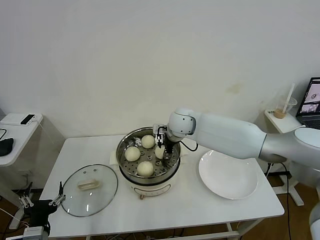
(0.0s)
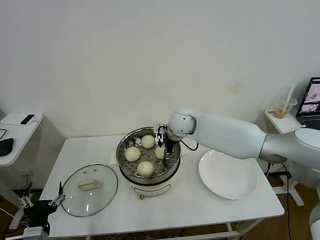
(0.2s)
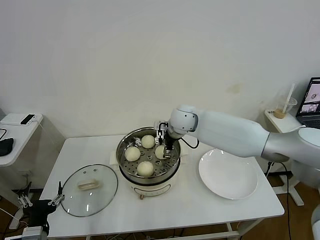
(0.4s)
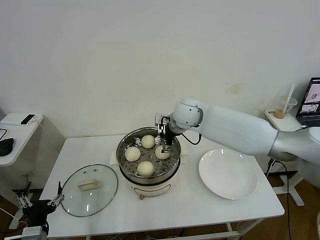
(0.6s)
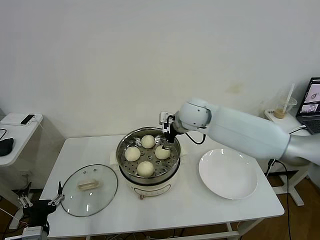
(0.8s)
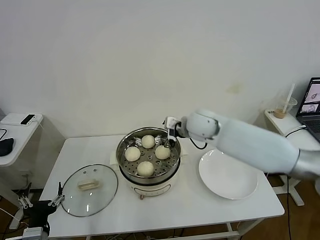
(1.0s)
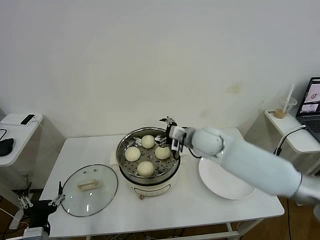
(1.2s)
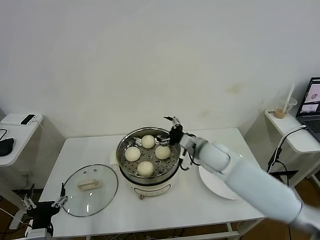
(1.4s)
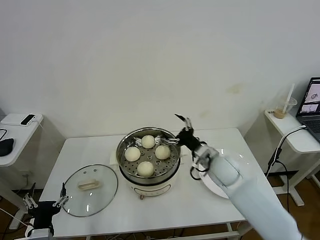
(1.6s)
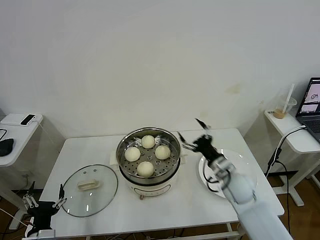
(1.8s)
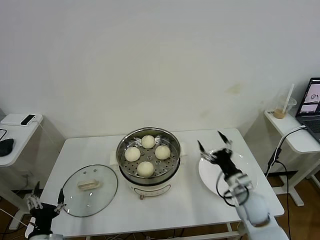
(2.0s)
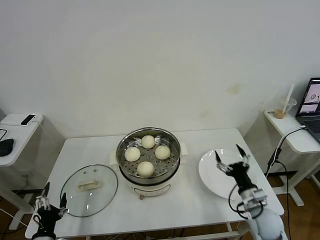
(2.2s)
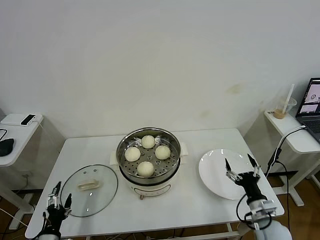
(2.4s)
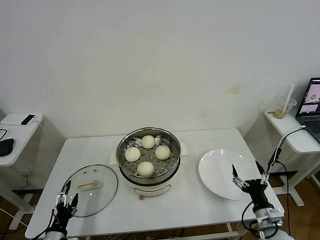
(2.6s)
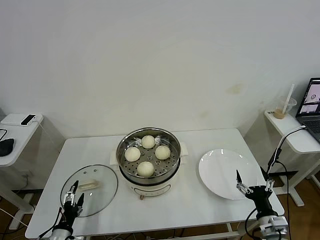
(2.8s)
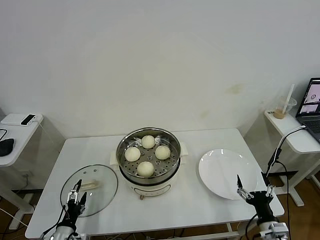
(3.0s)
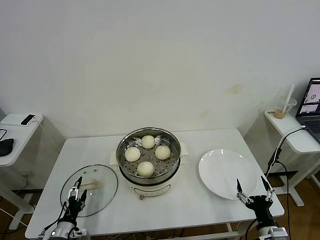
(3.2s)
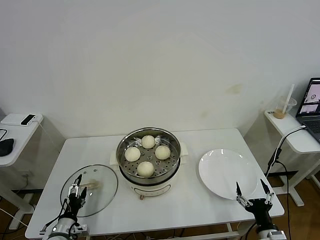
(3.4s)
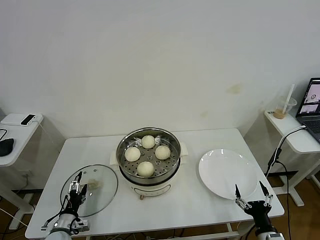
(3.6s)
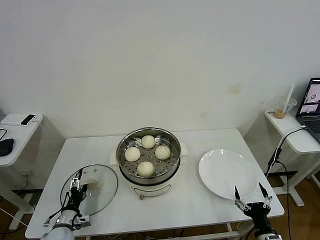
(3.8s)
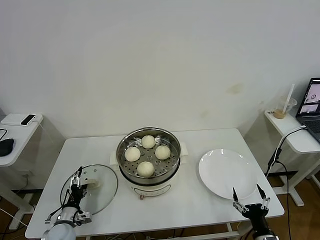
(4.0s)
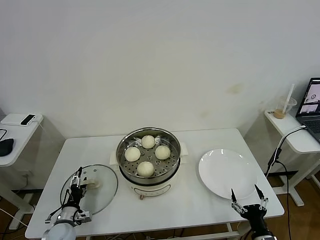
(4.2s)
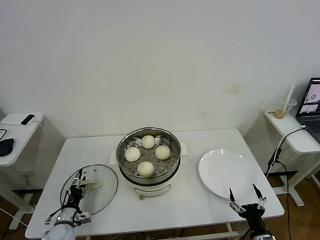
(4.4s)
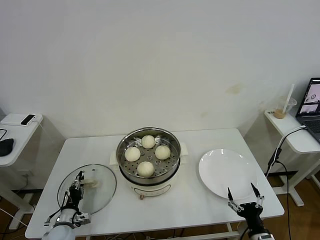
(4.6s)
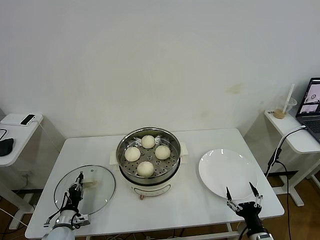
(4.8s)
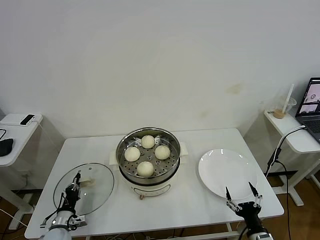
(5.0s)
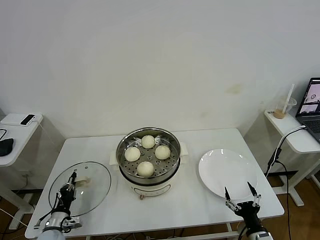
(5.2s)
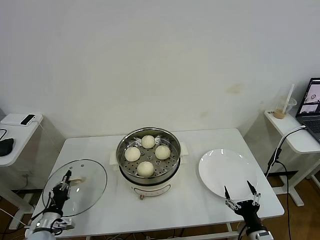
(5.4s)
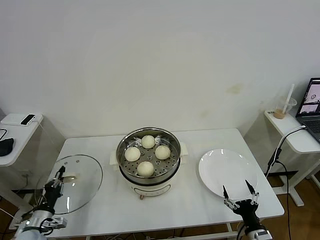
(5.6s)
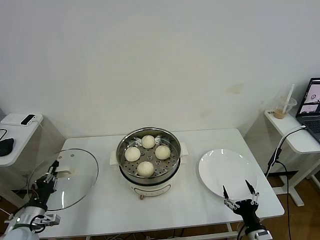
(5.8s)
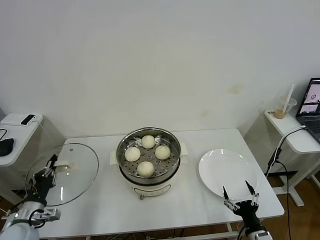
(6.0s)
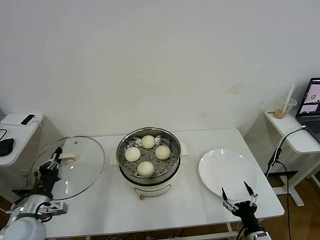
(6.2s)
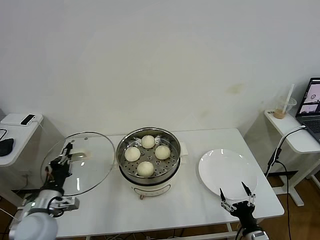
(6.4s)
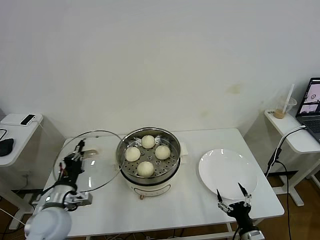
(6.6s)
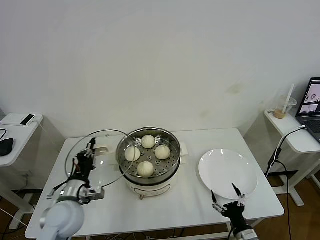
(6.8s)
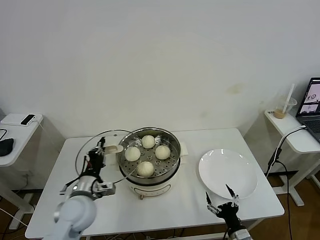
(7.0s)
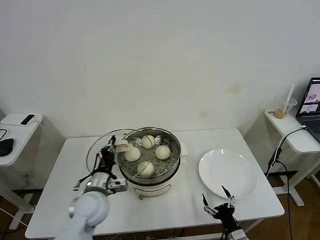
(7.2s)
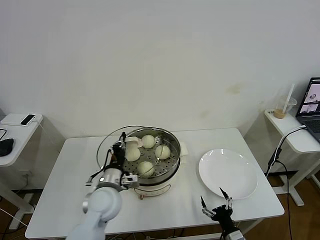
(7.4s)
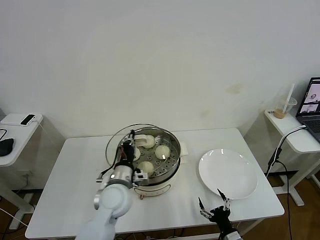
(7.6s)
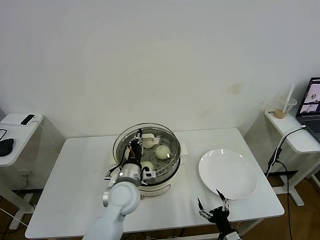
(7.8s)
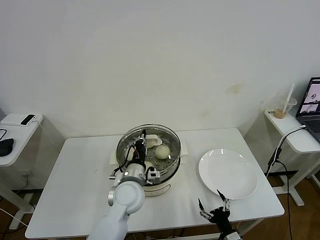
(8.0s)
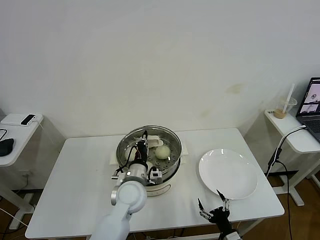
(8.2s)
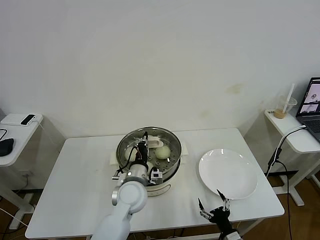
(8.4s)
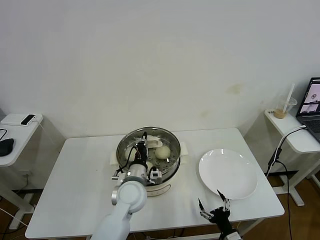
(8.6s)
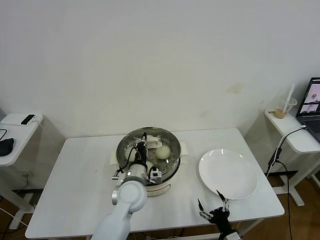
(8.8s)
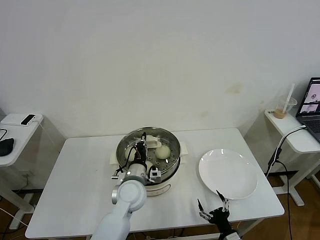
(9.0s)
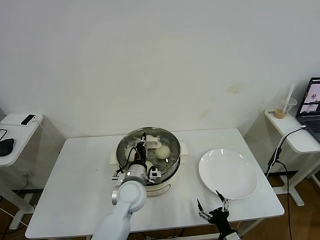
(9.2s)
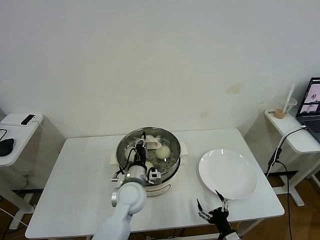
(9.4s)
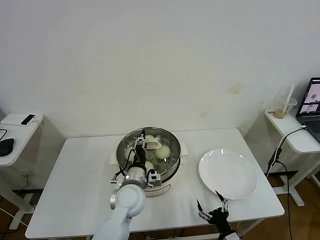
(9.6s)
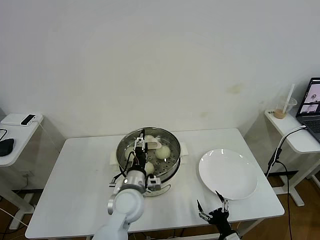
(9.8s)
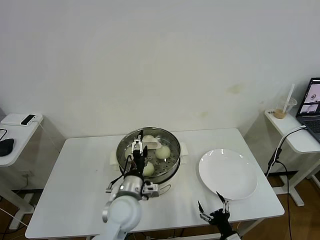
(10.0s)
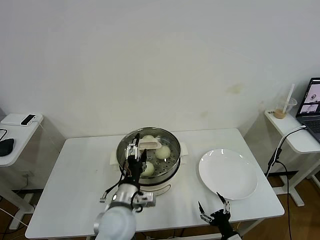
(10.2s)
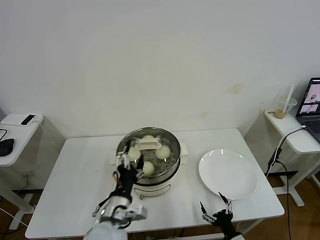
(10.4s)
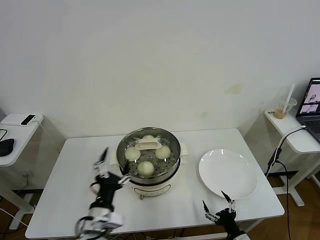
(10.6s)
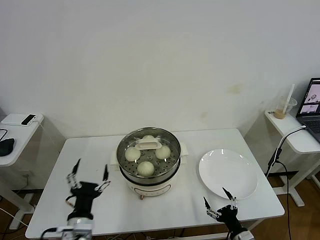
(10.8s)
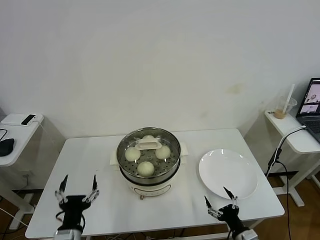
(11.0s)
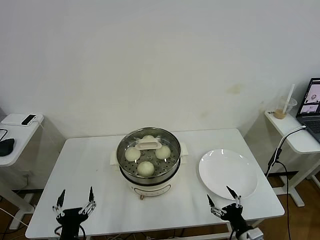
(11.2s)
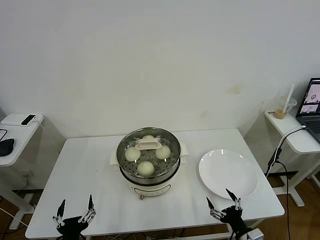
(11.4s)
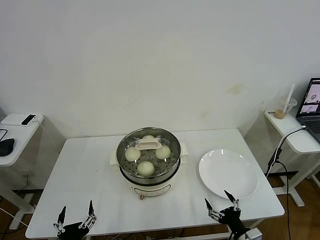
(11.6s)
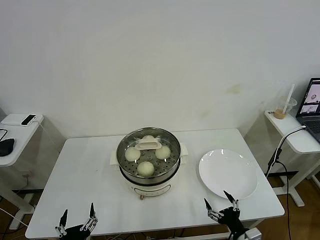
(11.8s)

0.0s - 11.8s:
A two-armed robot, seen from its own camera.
Task of the whole recording: take steamed baozi put them in steamer then cover it.
Step, 0.8s - 5.0s: Grasp the pot lid with left gripper.
Step, 5.2s - 10.0s: Place the pot lid on the steamer with left gripper.
0.0s - 1.4s: The right gripper moves to the right, backward and downward, approximately 15 cm, and opens up.
1.4s - 3.0s: The left gripper moves downward, some 10 cm, while the right gripper goes roughly 35 cm backward, to the right and downward.
3.0s - 4.4s: The left gripper shifts approximately 10 cm forward.
4.4s - 6.0s: The left gripper goes about 15 cm upward, and closes up.
6.0s - 7.4s: The right gripper shifts by about 5 cm, while the left gripper travels to the right by approximately 25 cm.
7.4s - 8.8s: The left gripper travels to the right by about 10 cm.
8.8s - 10.4s: The left gripper shifts some 10 cm backward, and opens up.
10.4s - 11.8s: The right gripper moves upward, about 5 cm; the left gripper is displaced backward, to the left and downward by some 20 cm.

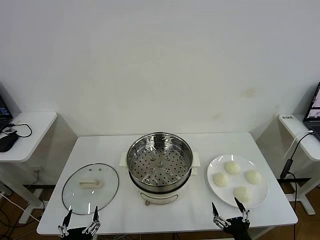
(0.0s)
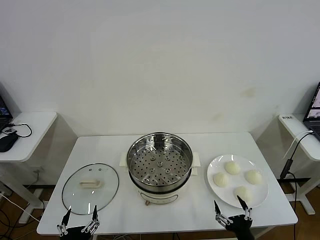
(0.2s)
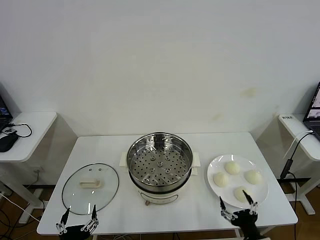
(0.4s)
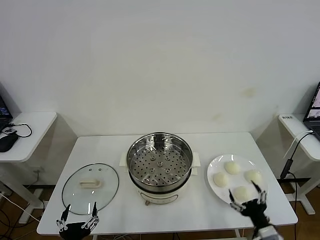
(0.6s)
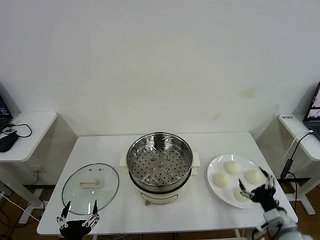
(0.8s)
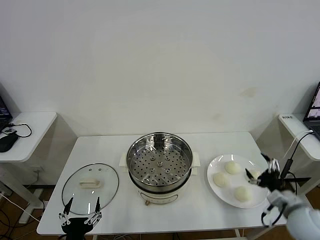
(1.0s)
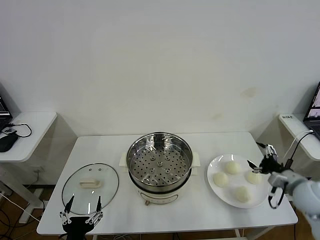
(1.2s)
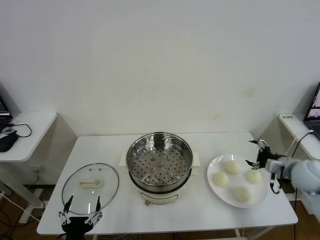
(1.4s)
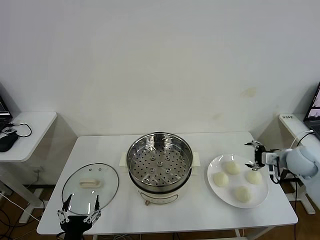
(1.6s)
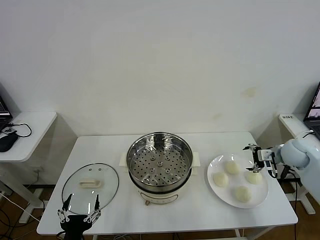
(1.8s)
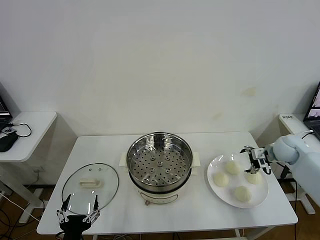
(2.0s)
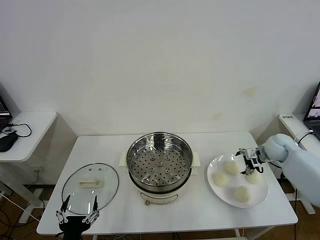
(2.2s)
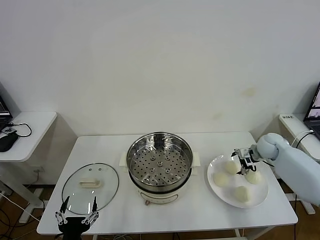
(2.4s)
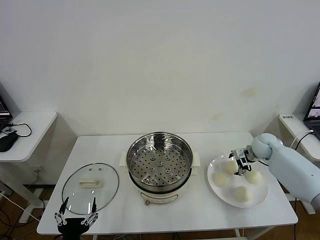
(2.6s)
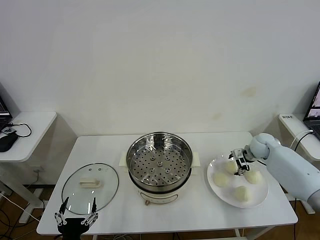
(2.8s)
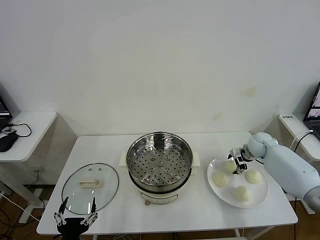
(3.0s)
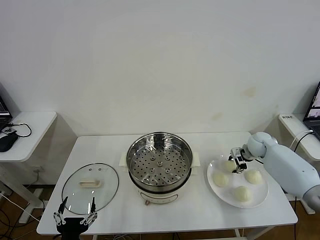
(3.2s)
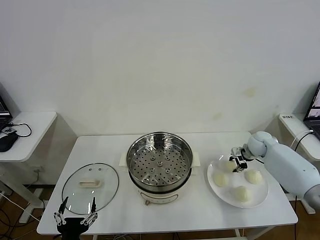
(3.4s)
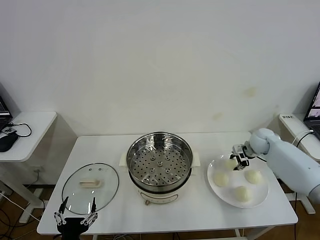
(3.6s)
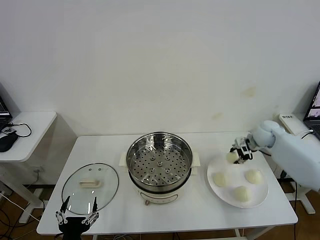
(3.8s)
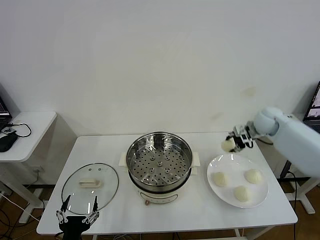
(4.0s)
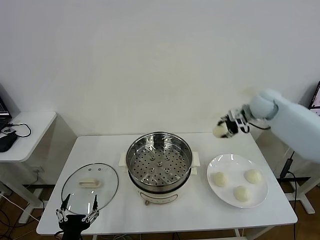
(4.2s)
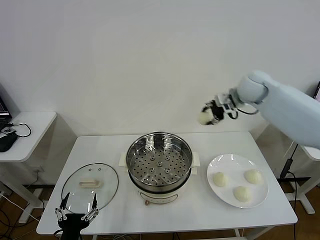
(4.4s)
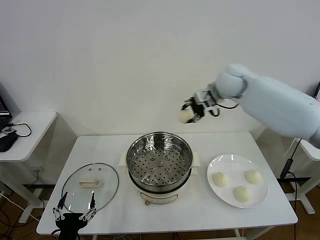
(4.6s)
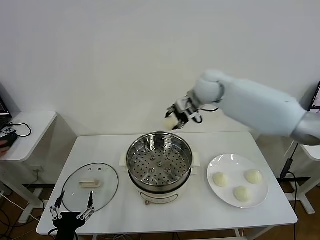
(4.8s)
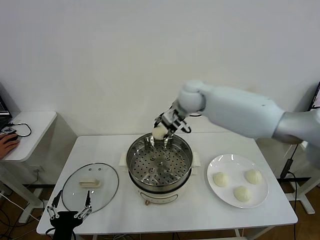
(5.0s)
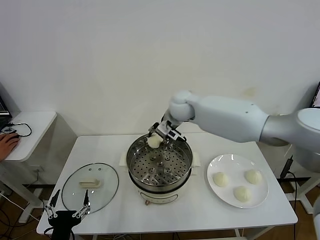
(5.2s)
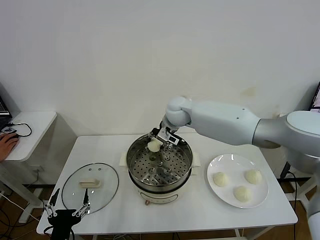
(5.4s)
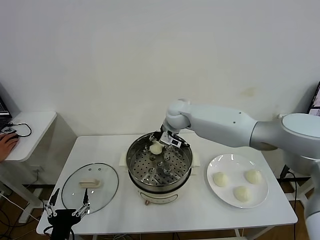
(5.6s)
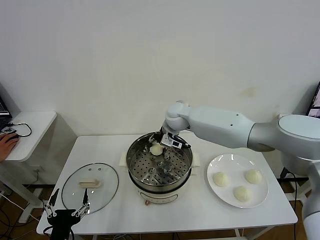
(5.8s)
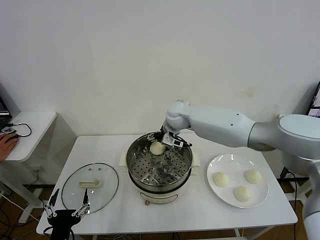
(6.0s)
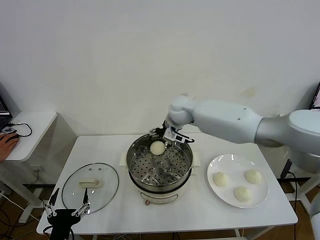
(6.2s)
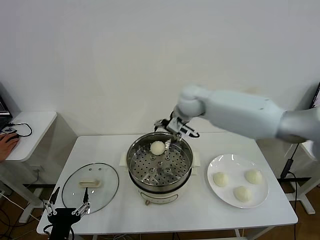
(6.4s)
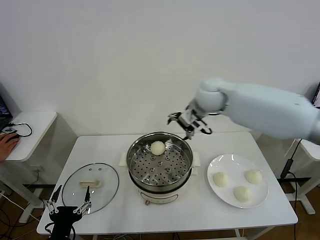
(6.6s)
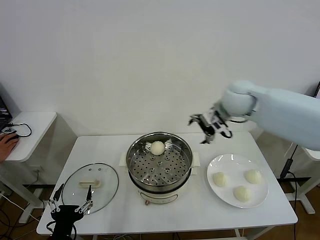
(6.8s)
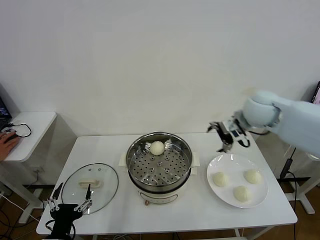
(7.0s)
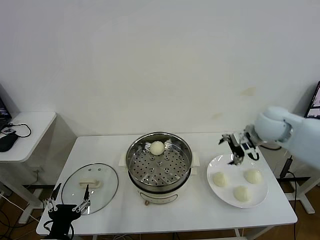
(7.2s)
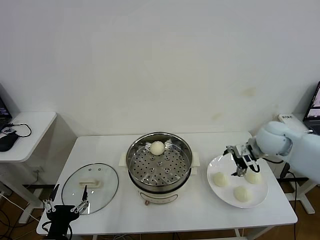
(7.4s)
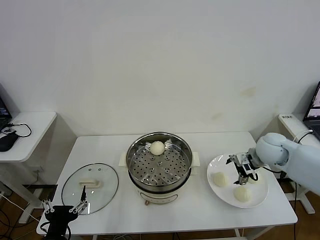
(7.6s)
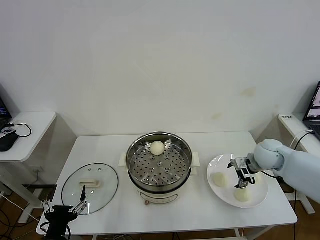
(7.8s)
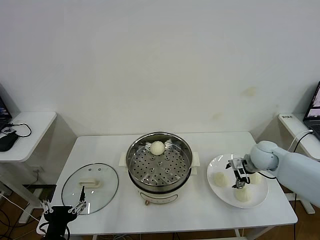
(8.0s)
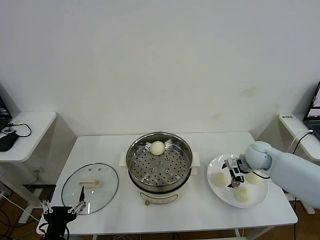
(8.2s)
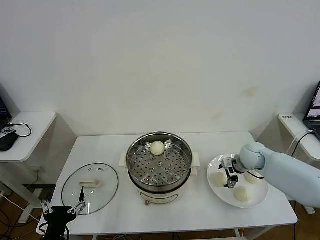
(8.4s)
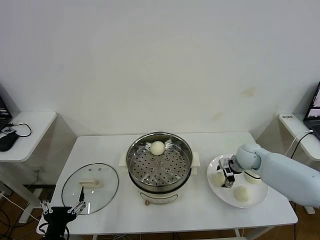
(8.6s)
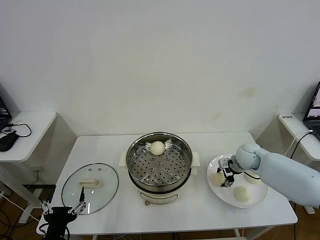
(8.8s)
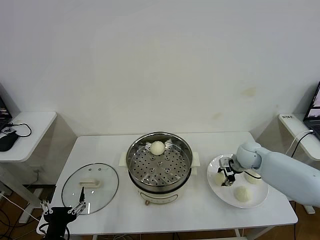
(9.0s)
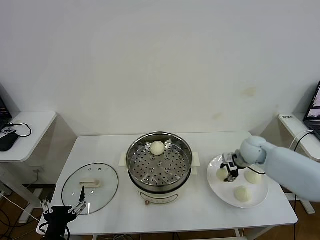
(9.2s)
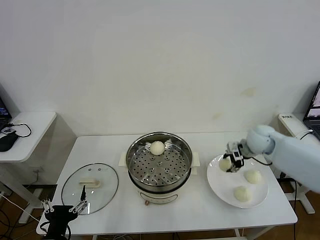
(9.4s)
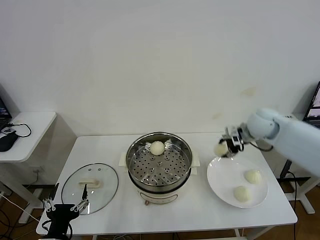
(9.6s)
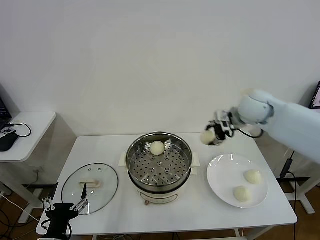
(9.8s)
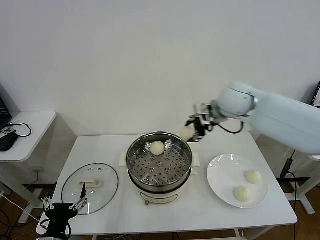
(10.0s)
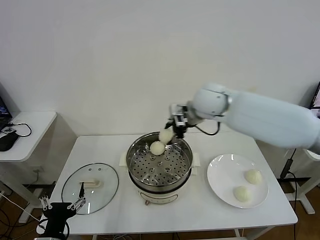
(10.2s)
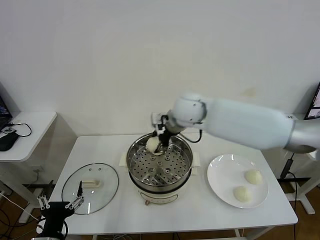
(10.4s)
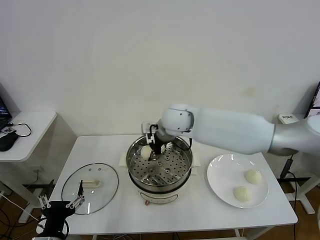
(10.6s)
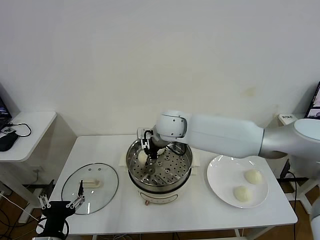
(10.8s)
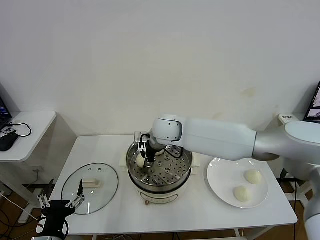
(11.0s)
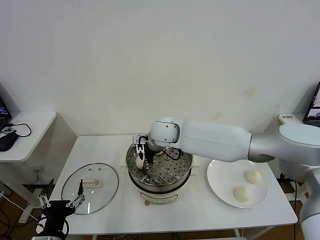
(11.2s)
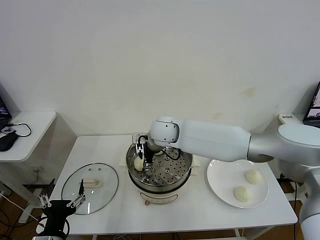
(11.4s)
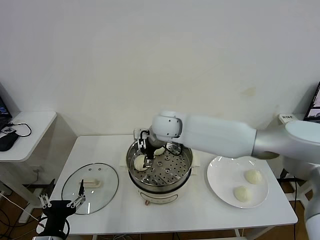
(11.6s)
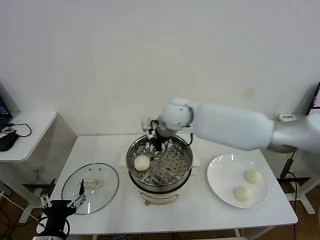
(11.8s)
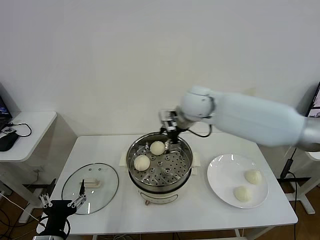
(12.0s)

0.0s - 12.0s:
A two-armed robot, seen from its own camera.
Task of the whole recording: take steamed baozi put them in steamer then cover it.
Step, 0.0s - 3.2s: Grasp the baozi in the plate with right gripper.
Step, 3.4s - 5.8s: Place the baozi on the steamer with right gripper.
Step, 6.0s - 8.8s: Grasp the baozi in the plate with right gripper.
Step, 9.0s - 11.4s: Place the baozi on the steamer with right gripper.
1.6s - 3.0s: The right gripper shifts roughly 15 cm forward, downward and to the left.
3.0s - 4.4s: The right gripper moves upward and to the left, some 30 cm, and closes its fingers.
4.4s - 6.0s: The right gripper heads to the left and downward, covering roughly 25 cm, and opens up.
6.0s - 7.6s: The right gripper heads to the right and backward, covering approximately 30 cm.
7.6s - 9.0s: The right gripper goes some 10 cm downward, and closes.
9.0s - 10.4s: The right gripper goes roughly 30 cm to the left and upward.
10.4s - 12.0s: The right gripper travels downward and back again, some 10 cm each way, and opens.
